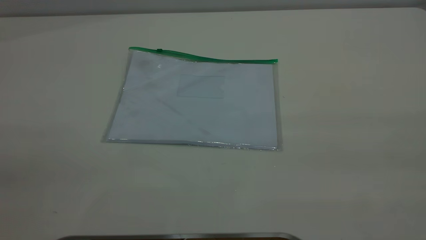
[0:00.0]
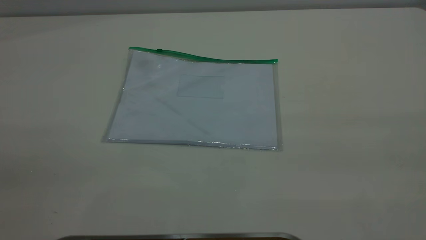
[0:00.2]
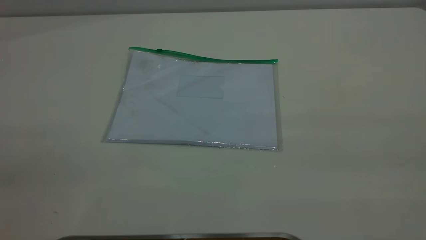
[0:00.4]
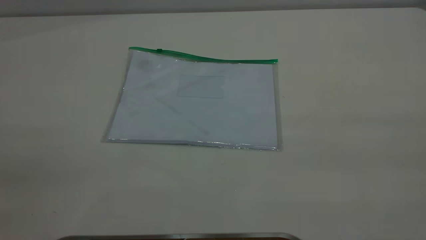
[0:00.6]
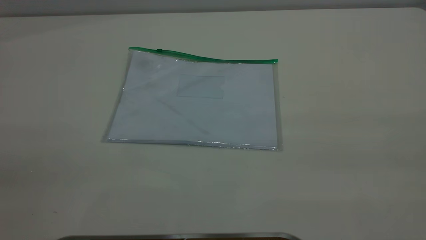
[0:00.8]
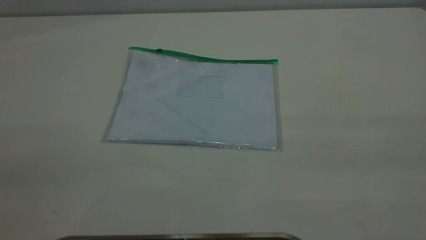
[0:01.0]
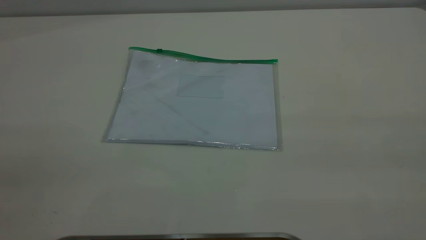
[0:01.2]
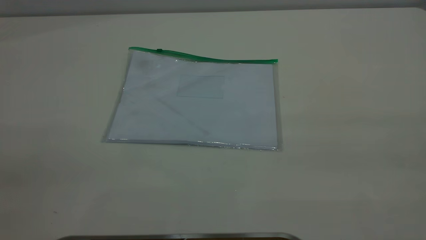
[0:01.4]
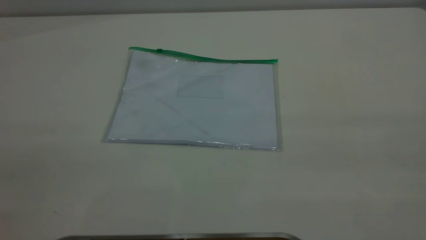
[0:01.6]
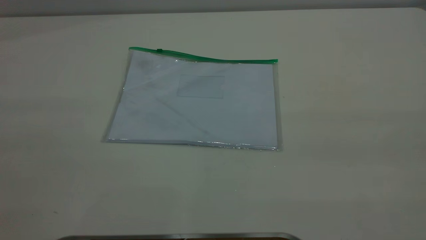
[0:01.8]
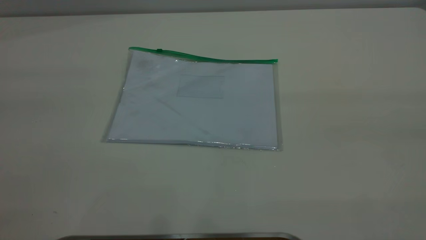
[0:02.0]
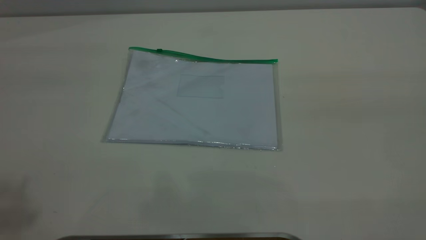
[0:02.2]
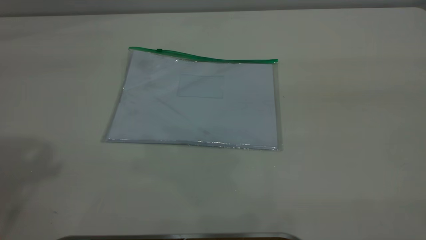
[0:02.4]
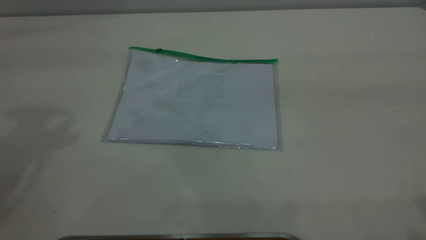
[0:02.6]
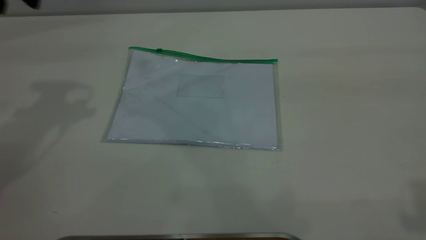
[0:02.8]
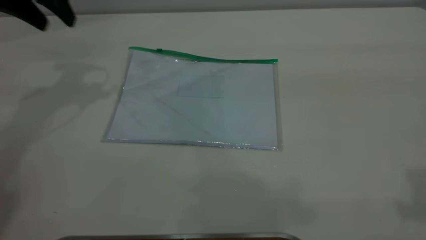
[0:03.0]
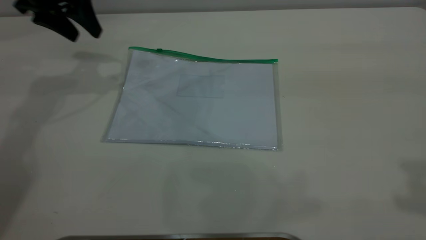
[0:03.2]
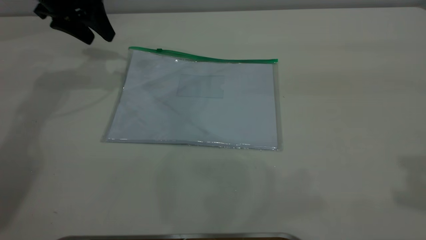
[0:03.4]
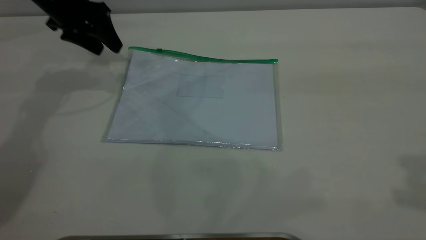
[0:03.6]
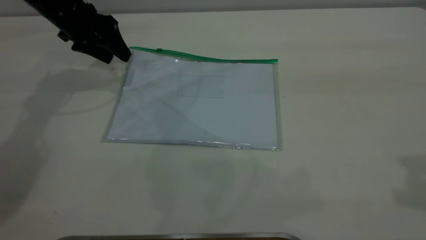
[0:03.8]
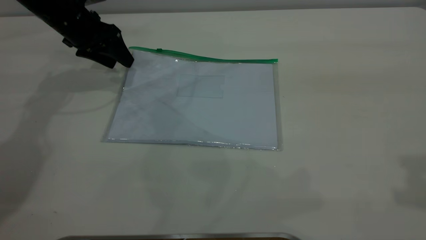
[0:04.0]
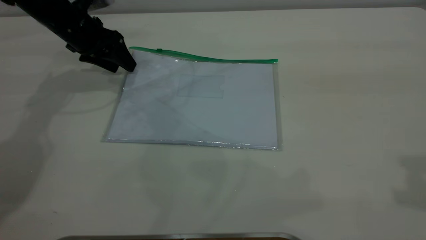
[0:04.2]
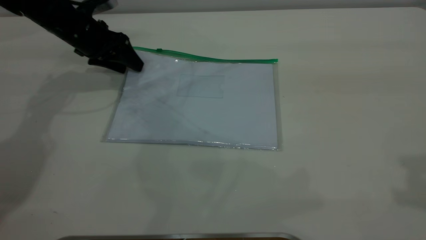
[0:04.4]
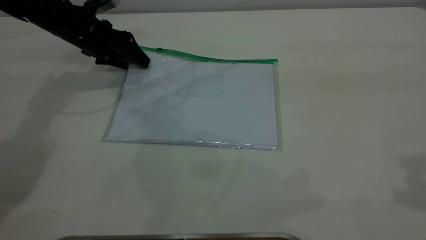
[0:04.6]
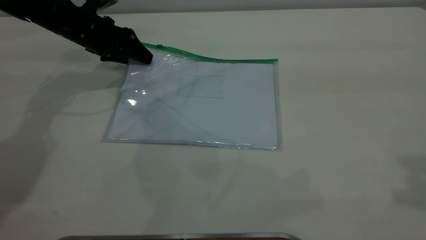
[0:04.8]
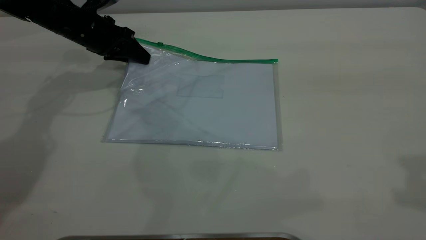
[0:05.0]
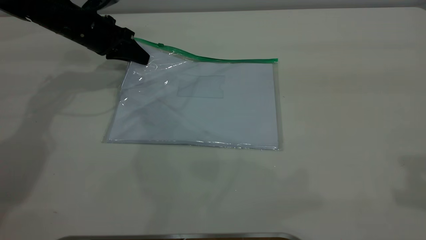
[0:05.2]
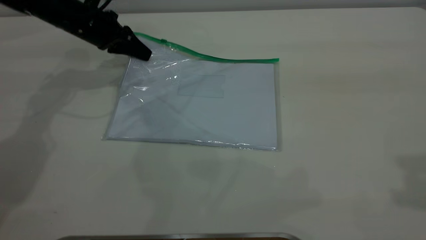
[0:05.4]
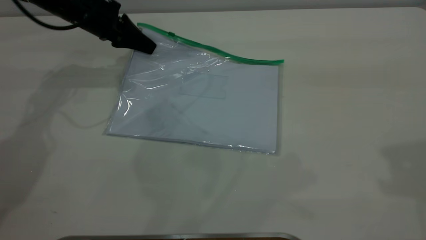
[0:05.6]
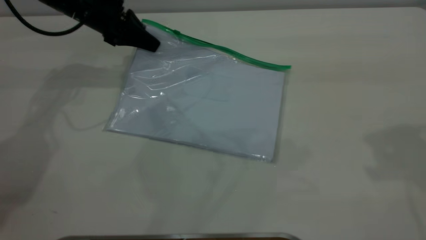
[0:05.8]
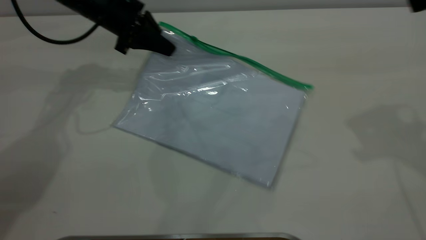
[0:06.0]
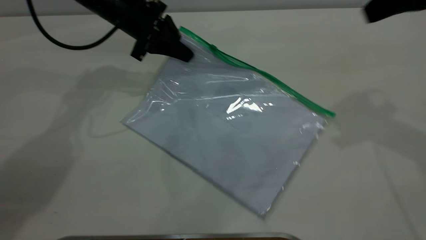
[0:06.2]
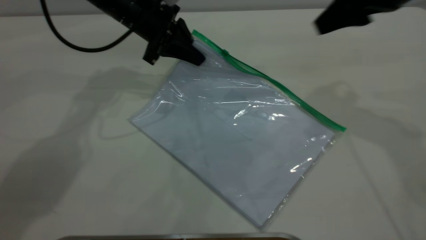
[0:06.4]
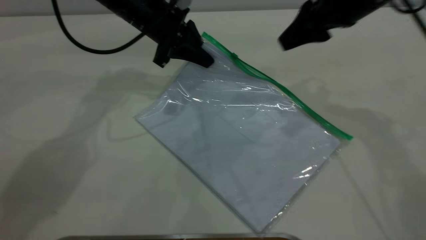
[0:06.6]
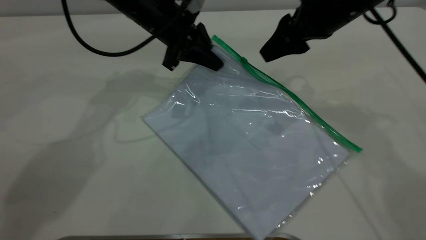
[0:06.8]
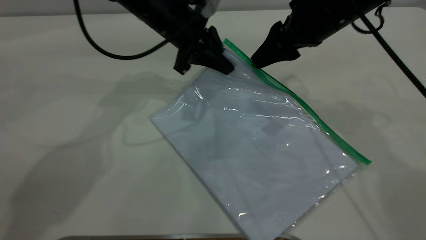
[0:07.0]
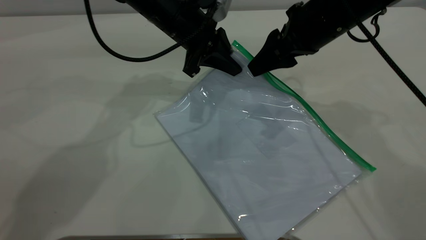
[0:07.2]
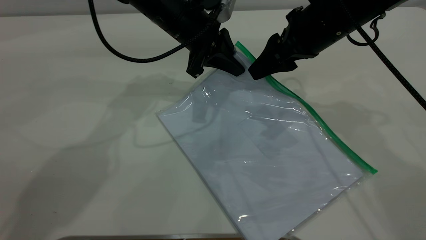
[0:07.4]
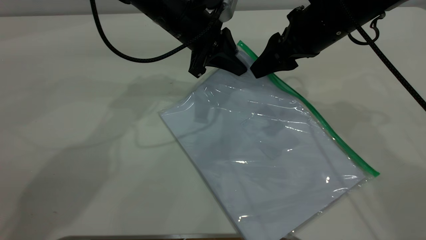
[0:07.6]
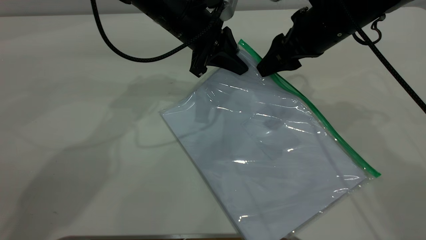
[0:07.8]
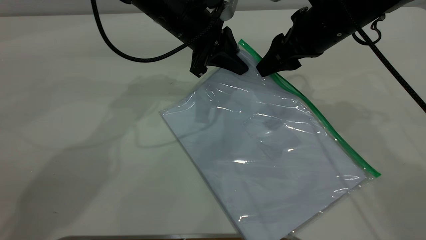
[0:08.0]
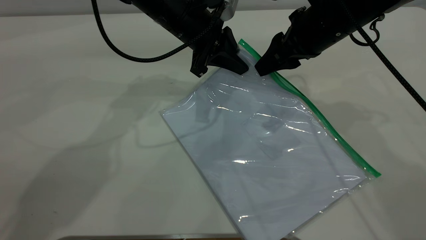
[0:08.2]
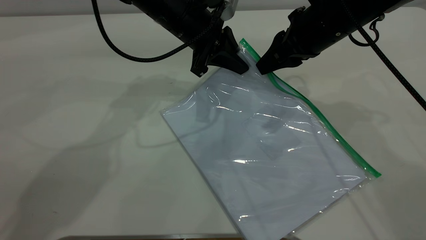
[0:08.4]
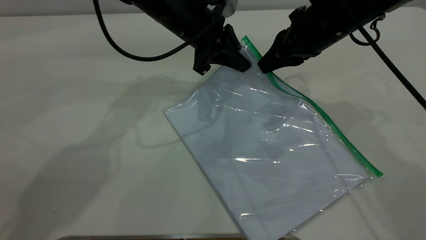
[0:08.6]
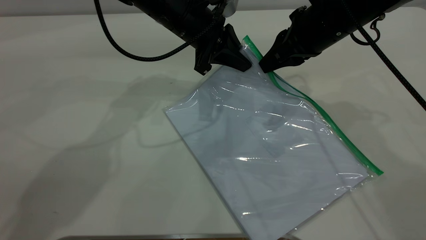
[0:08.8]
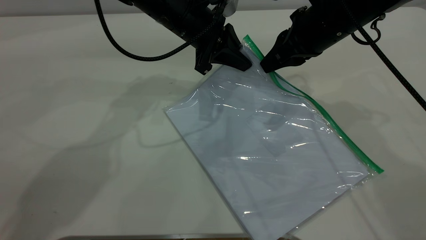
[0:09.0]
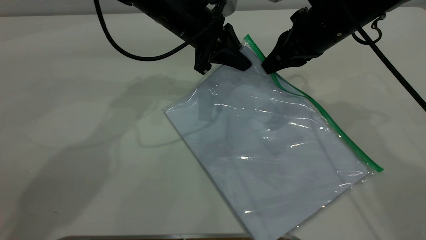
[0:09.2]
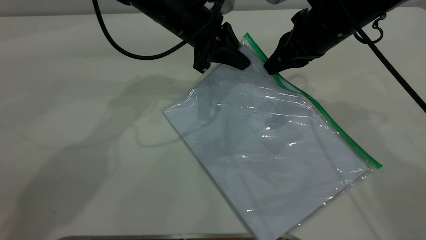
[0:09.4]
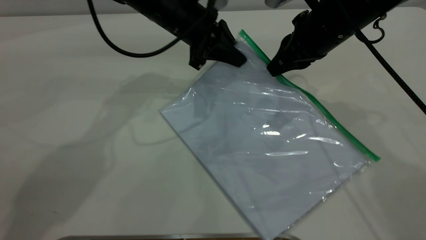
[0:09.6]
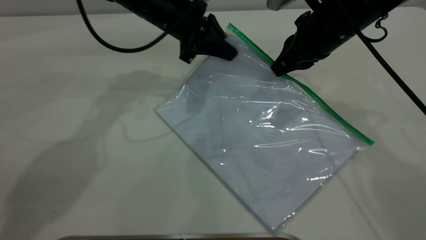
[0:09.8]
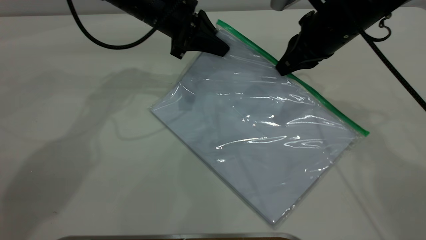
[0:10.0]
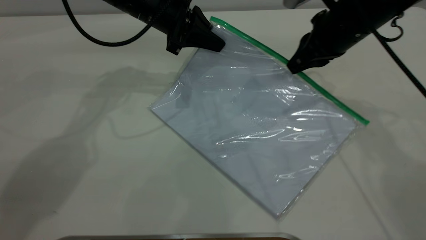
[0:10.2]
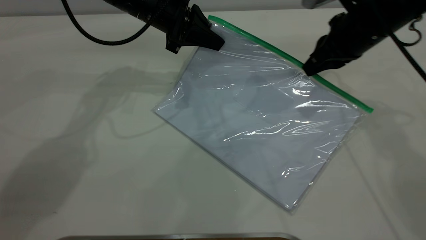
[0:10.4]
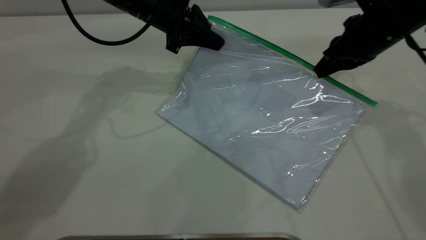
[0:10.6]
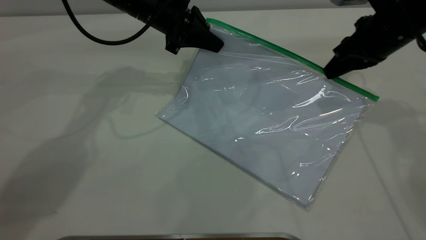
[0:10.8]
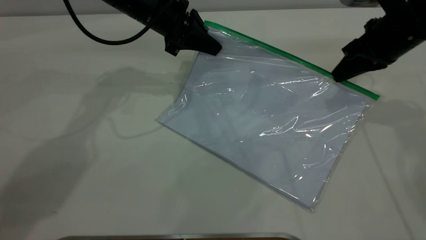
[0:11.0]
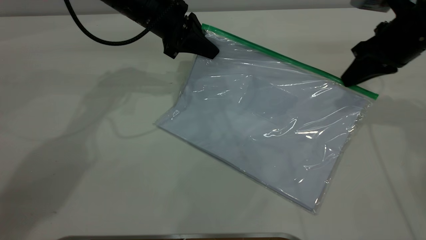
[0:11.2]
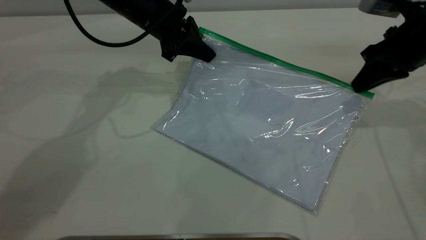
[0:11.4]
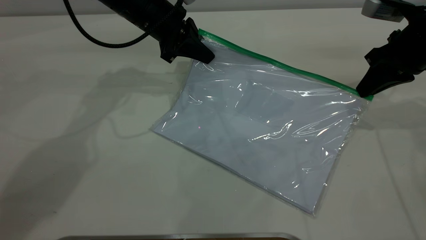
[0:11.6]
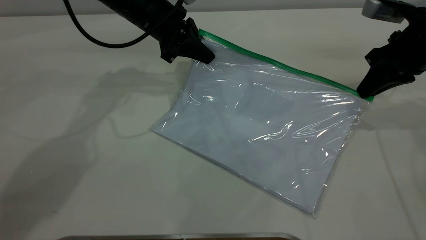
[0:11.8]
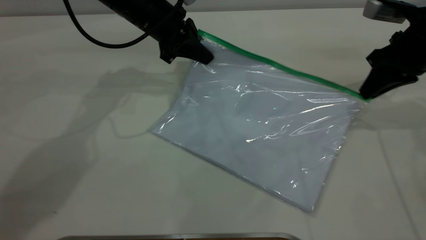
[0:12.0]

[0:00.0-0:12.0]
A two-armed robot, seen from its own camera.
Step, 0:00.0 to 0:05.4: Pick up the transparent plastic bag with the left gripper.
Step, 0:05.6 to 0:12.0: Pulling up the zipper on the transparent plastic bag with the right gripper to close it.
0:01.6 to 0:03.0: The left gripper is displaced forward by some 40 cm.
0:03.0 to 0:04.4: The left gripper heads downward, covering approximately 15 cm.
0:04.4 to 0:06.0: The right gripper heads forward and downward, covering approximately 15 cm. The left gripper moves to the right, about 5 cm, and closes.
0:06.0 to 0:07.6: The right gripper heads downward, to the left and forward, covering roughly 20 cm, while the left gripper travels to the right by some 10 cm.
0:07.6 to 0:09.0: The right gripper closes.
0:09.0 to 0:10.4: The right gripper moves to the right, about 5 cm. Meanwhile the left gripper shifts roughly 5 cm to the left.
0:10.4 to 0:12.0: The right gripper is displaced to the right by approximately 10 cm.

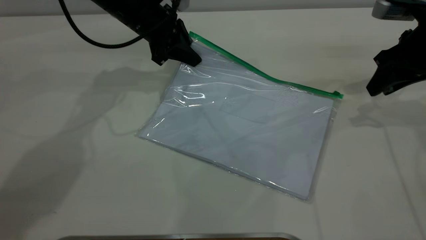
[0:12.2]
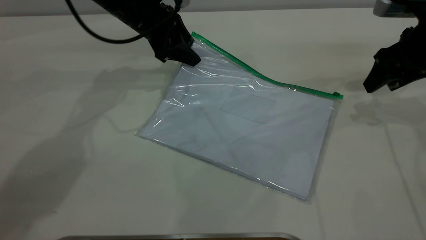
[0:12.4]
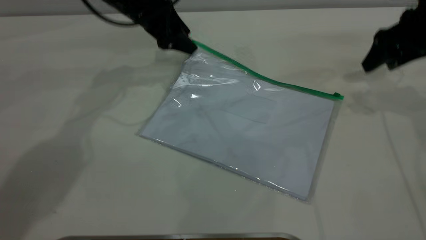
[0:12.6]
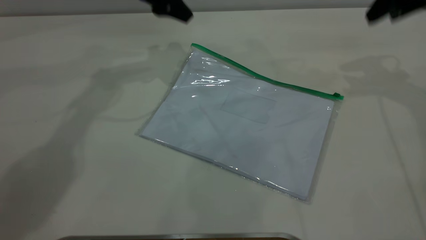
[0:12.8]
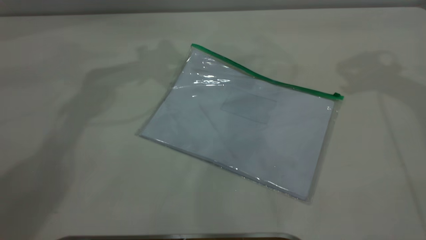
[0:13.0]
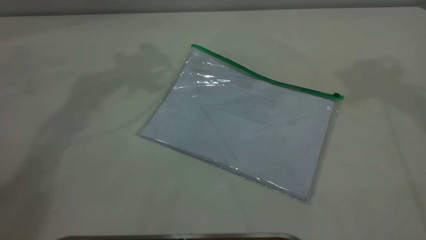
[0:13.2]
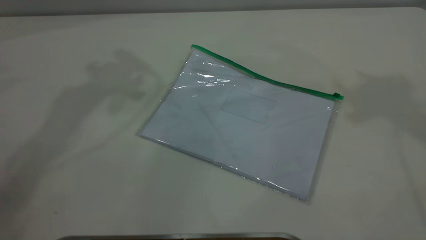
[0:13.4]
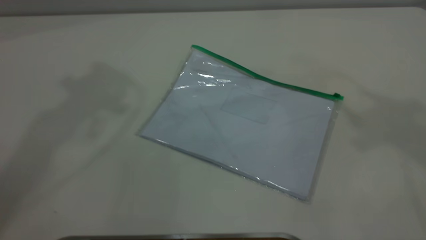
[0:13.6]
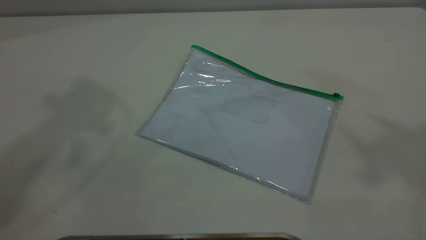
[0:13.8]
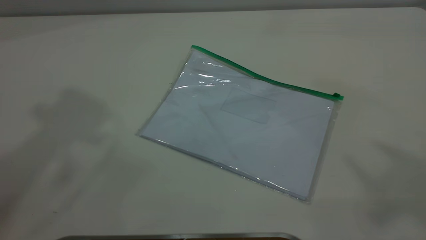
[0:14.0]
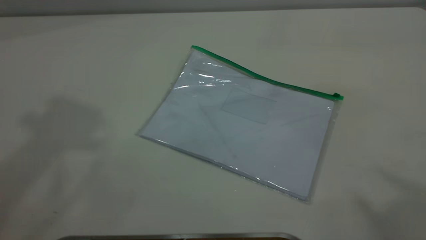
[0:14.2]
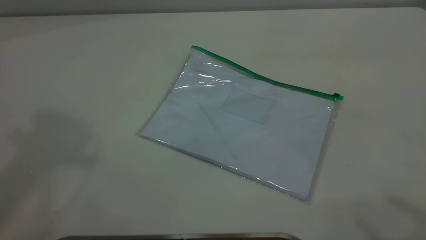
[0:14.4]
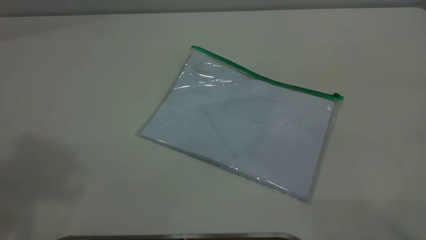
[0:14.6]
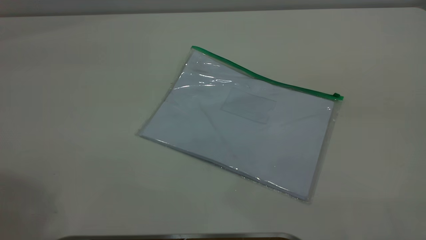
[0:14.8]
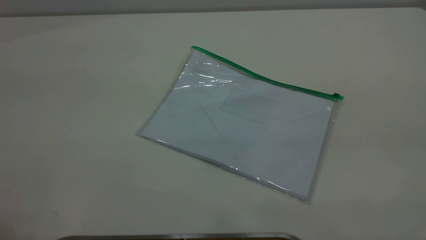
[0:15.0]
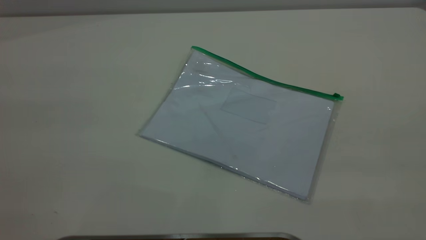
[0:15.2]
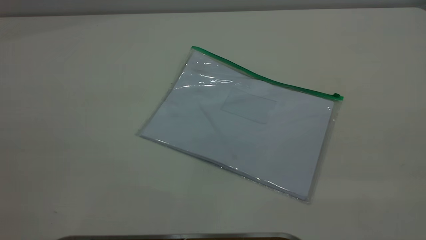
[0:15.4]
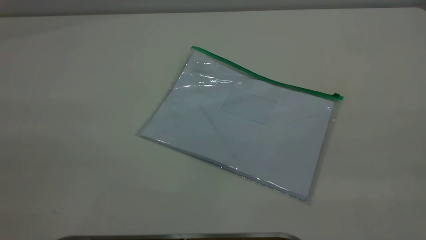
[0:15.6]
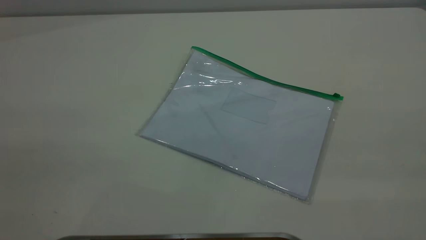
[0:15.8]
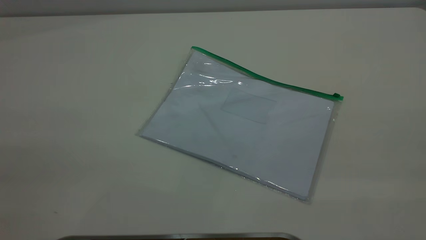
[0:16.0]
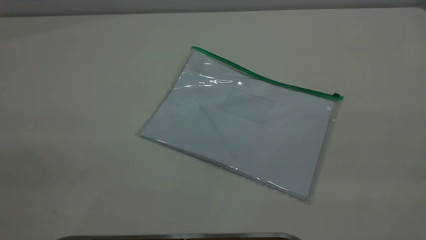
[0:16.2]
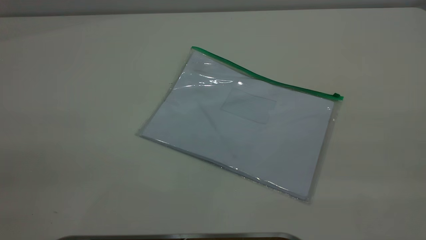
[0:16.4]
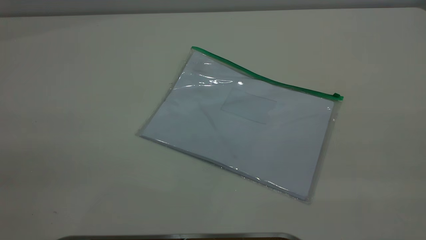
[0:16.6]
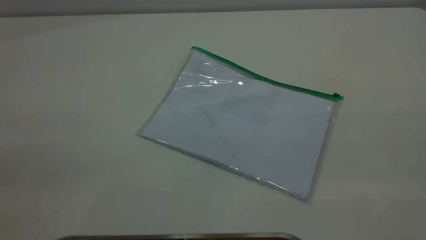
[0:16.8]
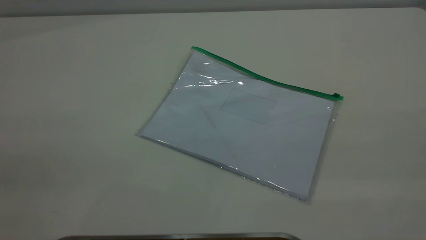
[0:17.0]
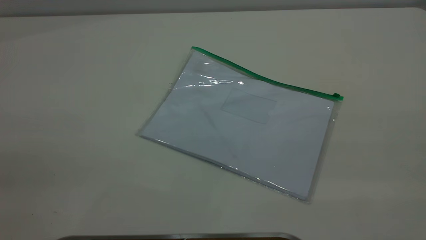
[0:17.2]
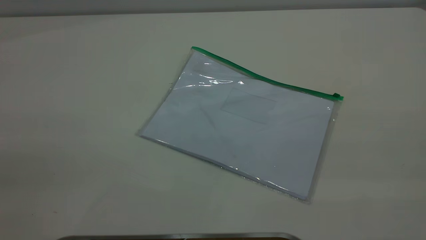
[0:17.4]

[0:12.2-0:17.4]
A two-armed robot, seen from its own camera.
Step, 0:12.2 to 0:12.6: Place the transparent plastic bag.
0:12.2 to 0:14.0: Both grippers travel together upward and backward, some 50 cm. The left gripper opens its fingers.
